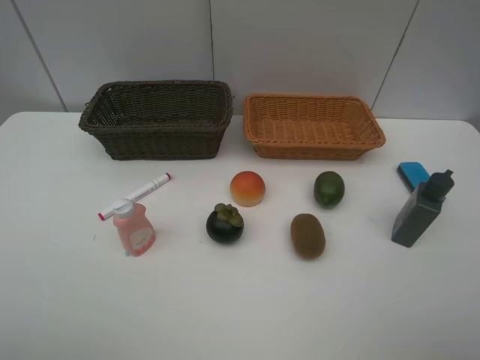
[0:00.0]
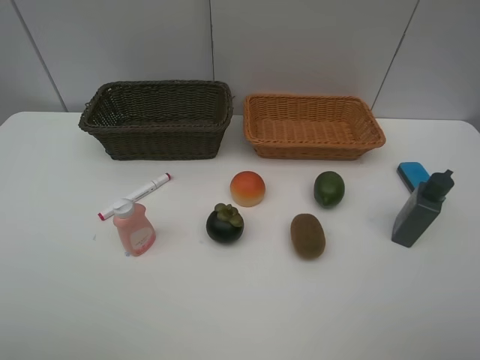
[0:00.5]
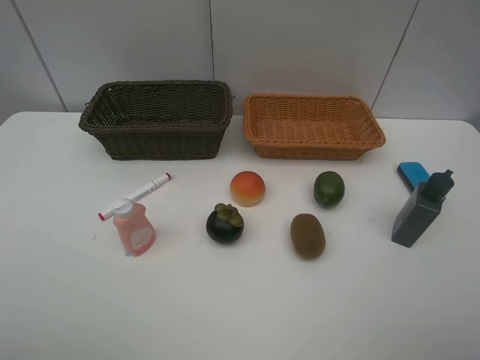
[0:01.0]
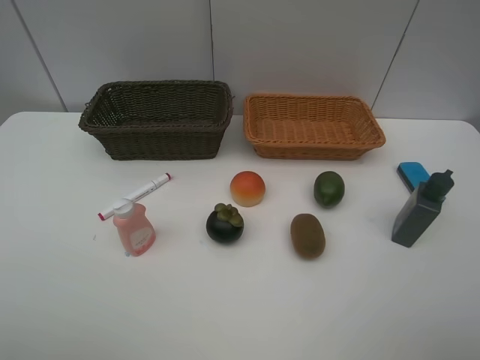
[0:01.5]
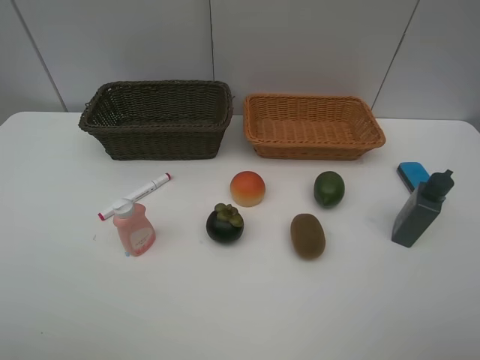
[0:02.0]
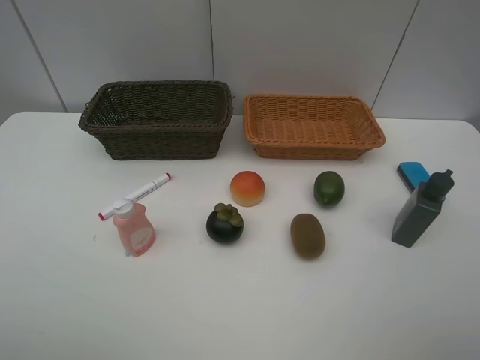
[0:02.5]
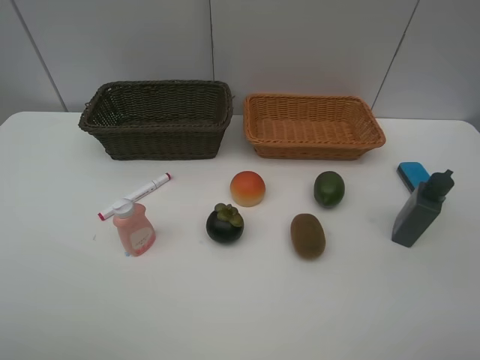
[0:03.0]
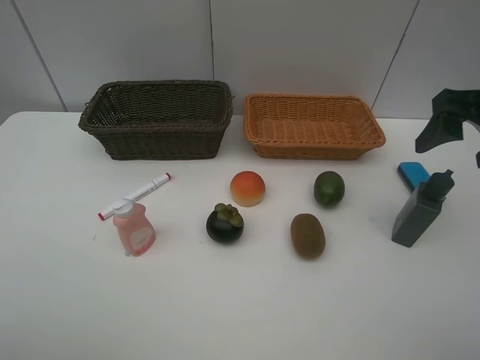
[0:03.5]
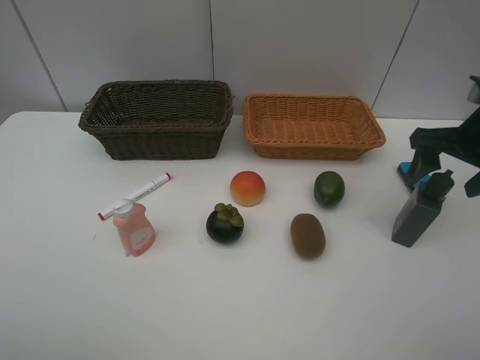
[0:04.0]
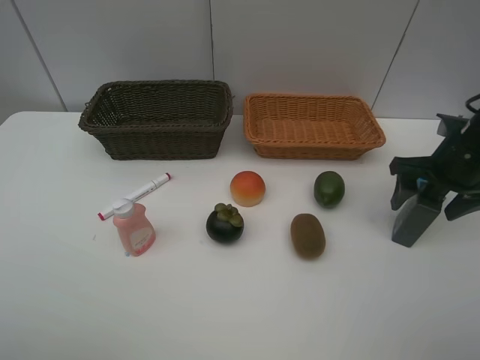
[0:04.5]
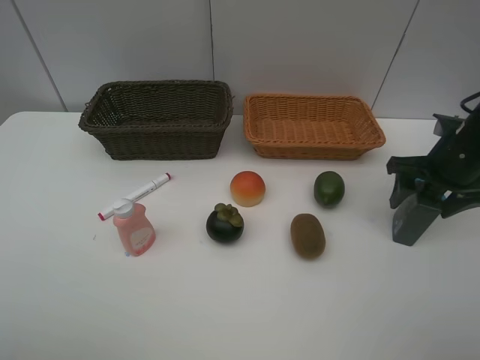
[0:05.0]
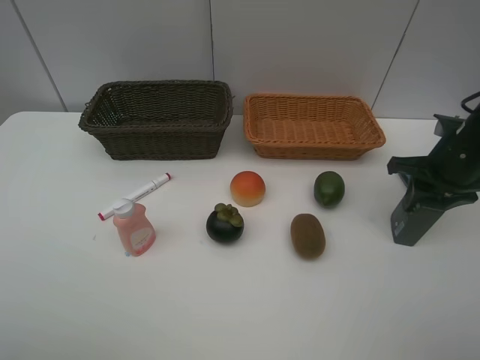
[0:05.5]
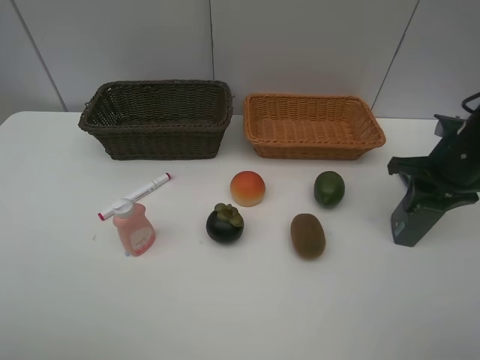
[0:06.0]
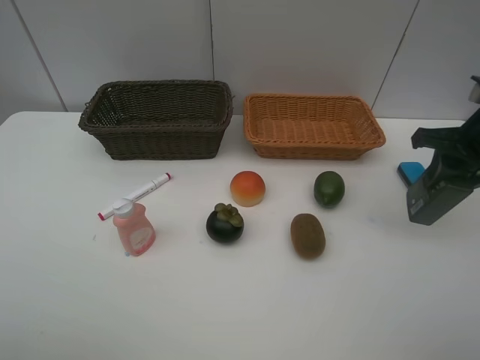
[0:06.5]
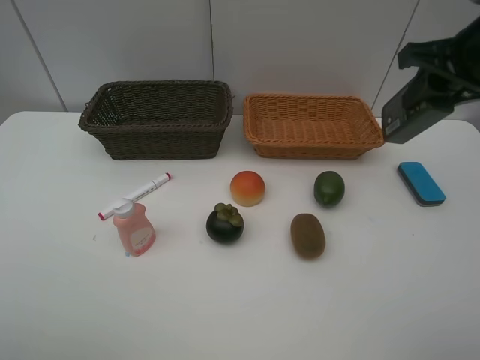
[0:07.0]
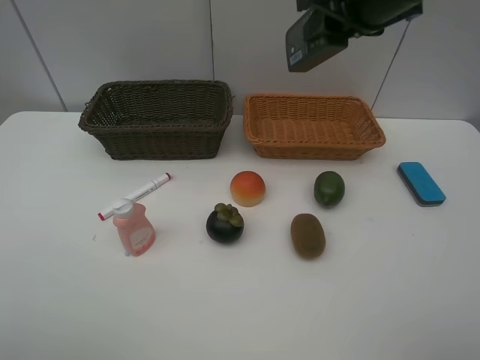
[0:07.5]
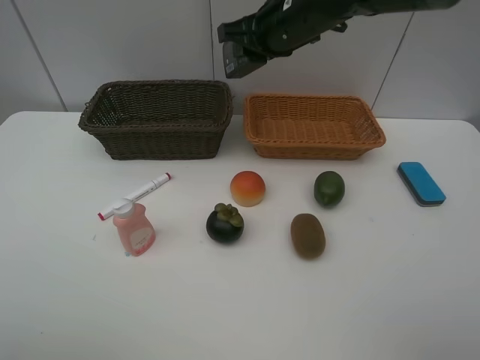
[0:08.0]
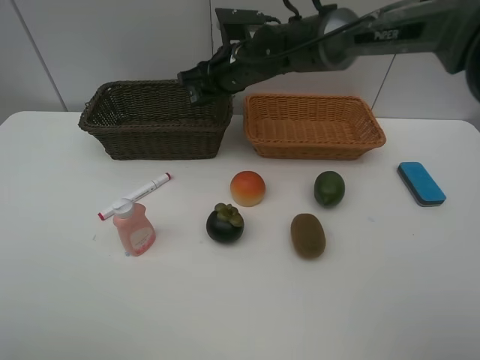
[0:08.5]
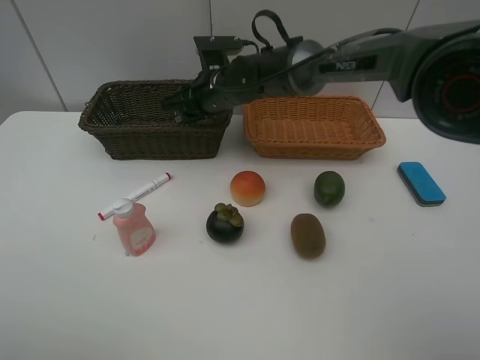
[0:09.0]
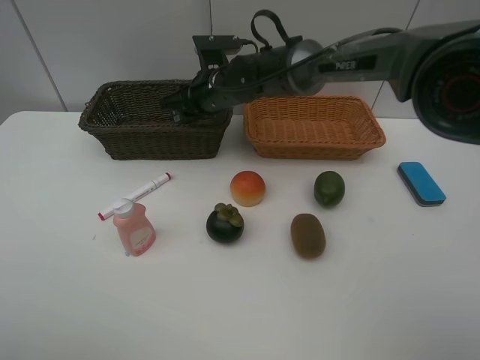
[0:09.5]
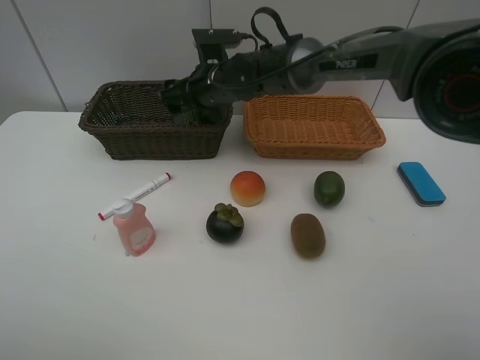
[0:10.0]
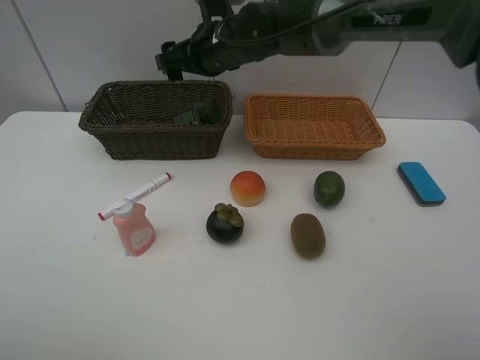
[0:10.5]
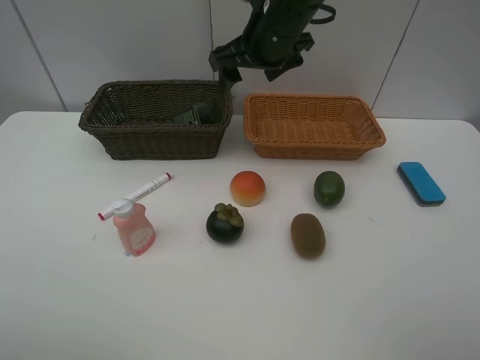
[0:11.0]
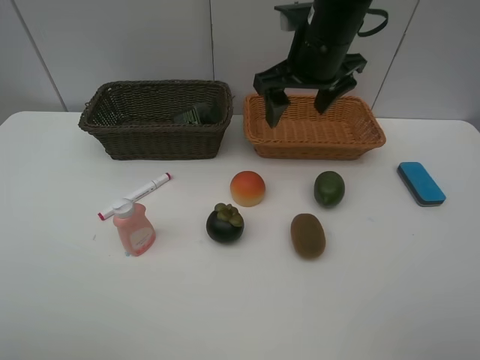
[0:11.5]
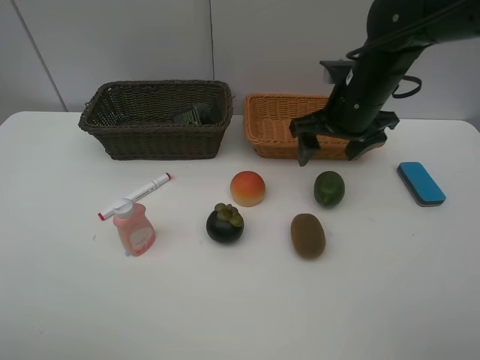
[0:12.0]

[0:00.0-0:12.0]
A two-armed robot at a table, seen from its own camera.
Task of the whole recording: Place multiple objects separately in different baskets.
Step, 0:00.0 to 0:06.0: Pick up the hard facial cleanser with right gripper.
Step, 0:06.5 to 0:10.0: Place the hard facial cleanser in the dark basket with right gripper.
0:02.0 to 0:04.0: The right gripper moves forward, roughly 25 cm.
0:04.0 to 0:06.0: The right gripper goes approximately 5 cm downward, and closes up.
0:06.0 to 0:08.0: The right gripper moves to the left, forward and upward, roughly 30 cm.
0:08.0 to 0:10.0: The right gripper moves downward and to the left, about 15 cm, and opens.
0:10.0 to 0:12.0: The right gripper goes about 20 cm to the right and backward.

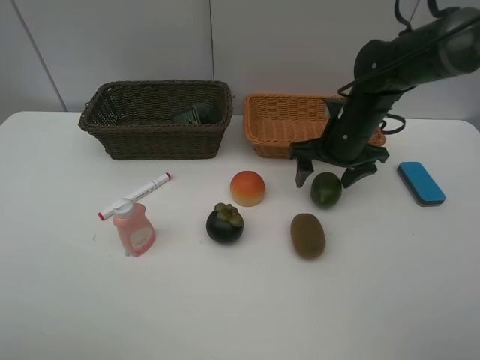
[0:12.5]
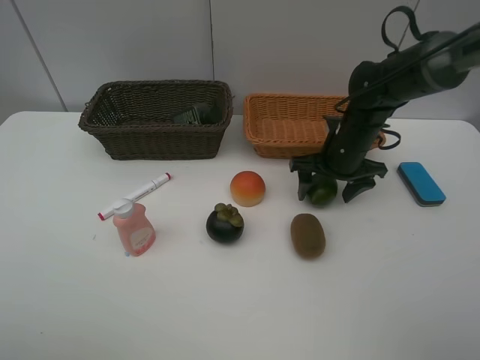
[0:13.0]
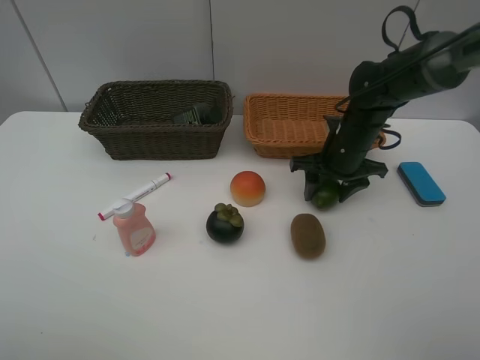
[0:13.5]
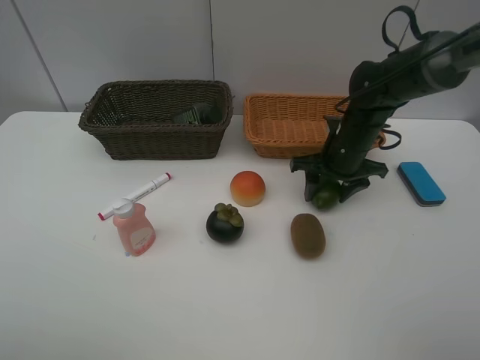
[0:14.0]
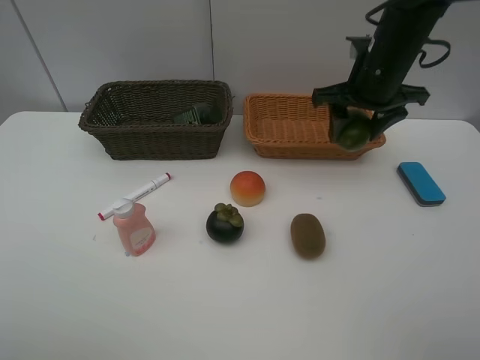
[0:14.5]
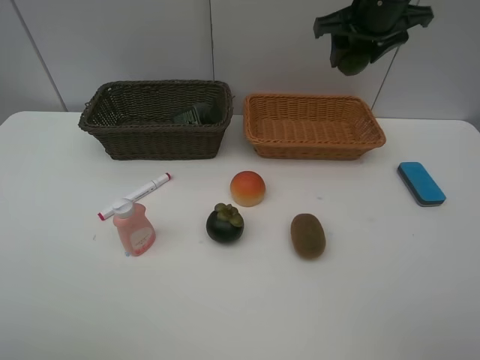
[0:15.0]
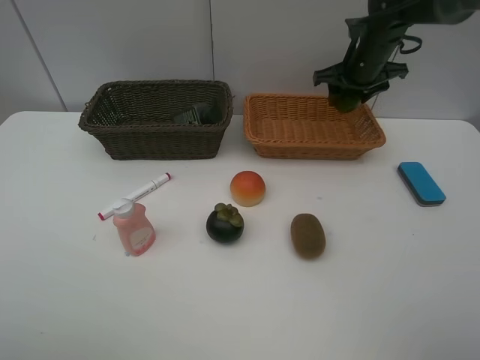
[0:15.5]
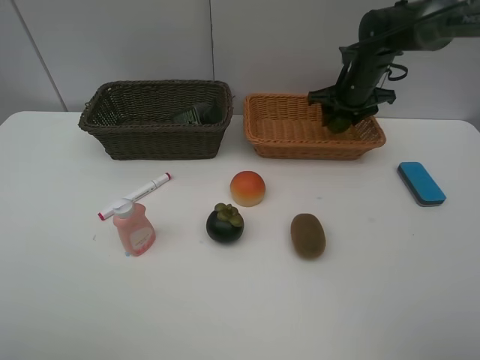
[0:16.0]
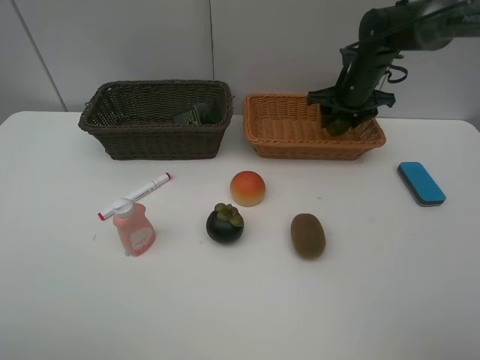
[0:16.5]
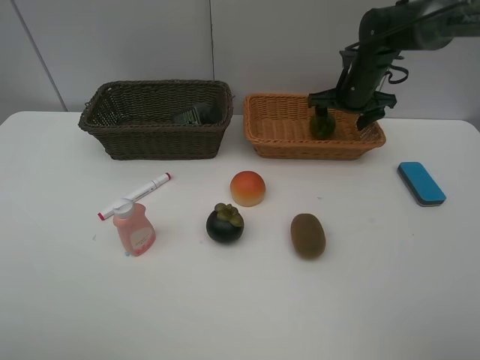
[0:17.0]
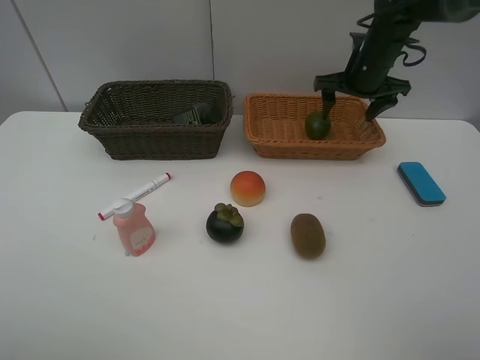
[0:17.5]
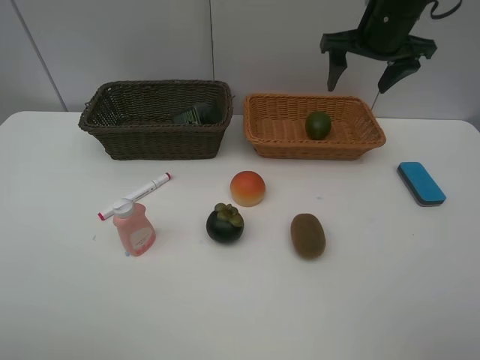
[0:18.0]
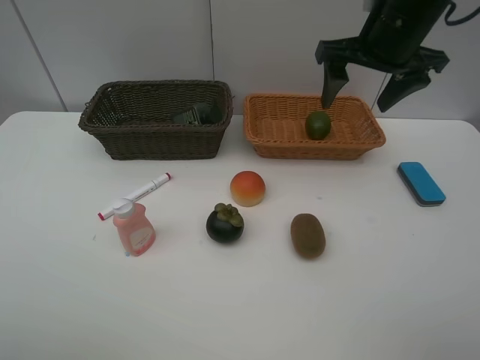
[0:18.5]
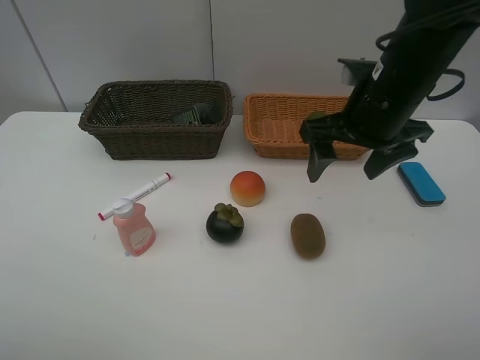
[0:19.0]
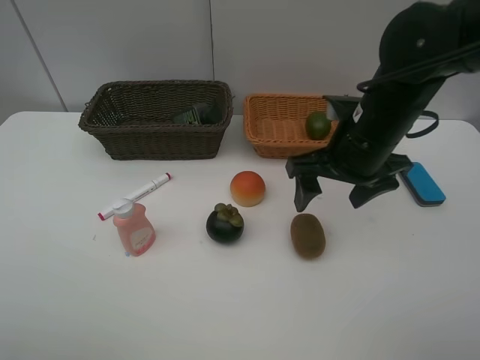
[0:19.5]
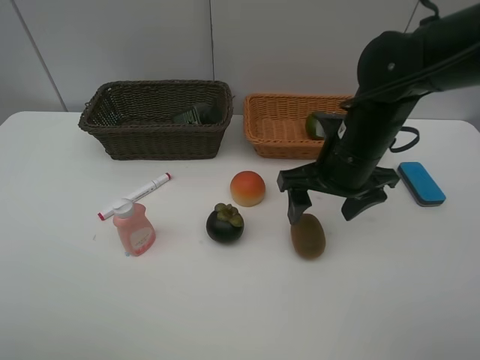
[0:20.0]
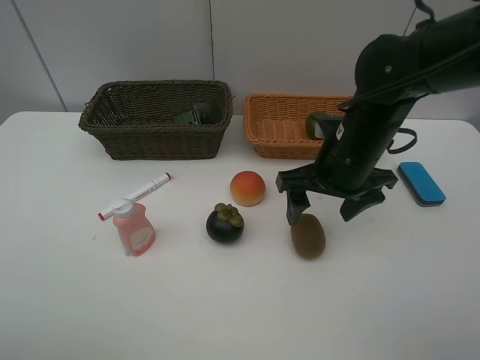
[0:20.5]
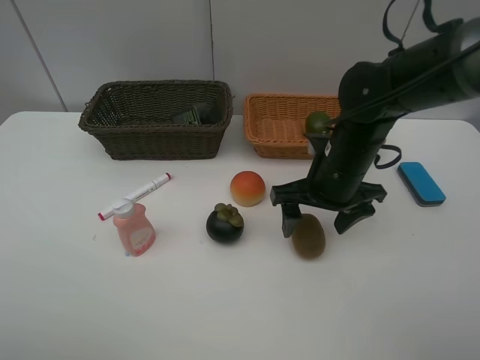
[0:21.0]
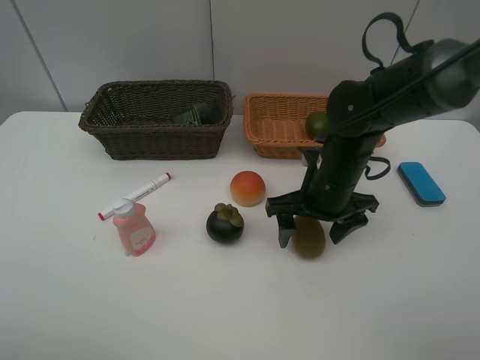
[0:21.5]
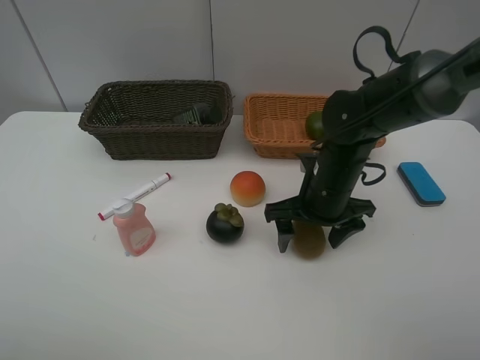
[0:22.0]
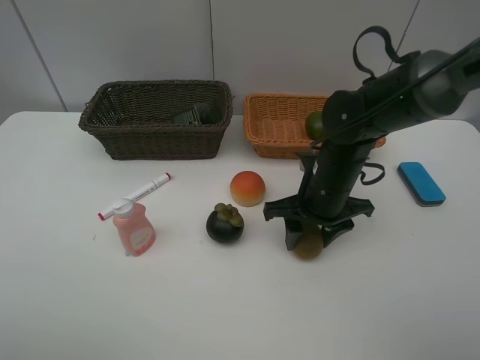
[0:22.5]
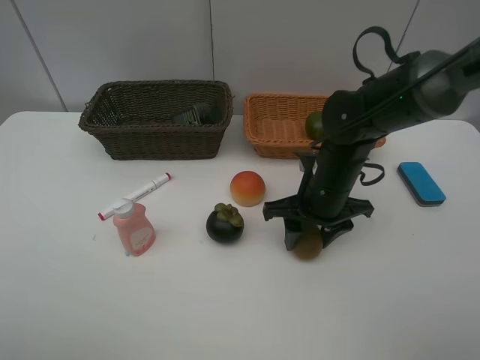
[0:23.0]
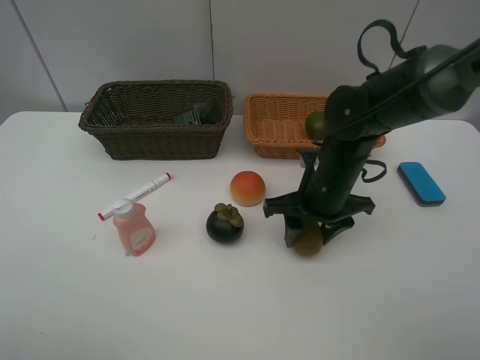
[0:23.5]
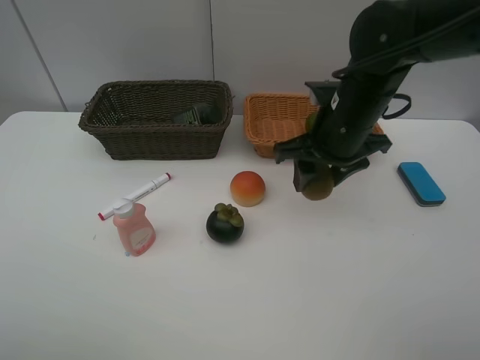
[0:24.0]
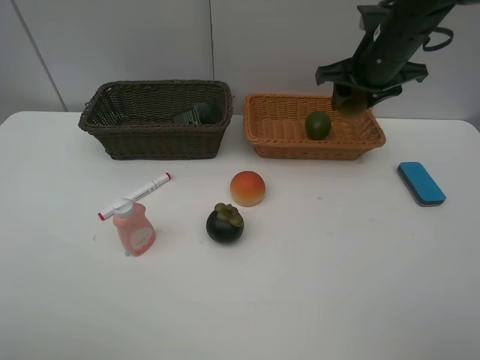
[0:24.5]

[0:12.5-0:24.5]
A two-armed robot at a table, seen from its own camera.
Task of the whole recording: Place multiple objects separately in different baskets.
Step, 0:14.5 to 0:17.0: Place the lime in the light basket with right gripper.
Step, 0:17.5 to 0:23.5: Pick up kiwi with right gripper.
0:12.5 to 0:14.5: The right gripper goes about 10 cm upward, and closes up.
0:14.5 to 0:16.5: The right gripper shifts approximately 15 cm forward and downward.
0:16.5 to 0:18.5: The right gripper shifts approximately 20 cm backward and upward.
0:18.5 to 0:20.5: The right gripper shifts roughly 15 cm downward and backward.
0:20.5 to 0:22.5: The right gripper is displaced downward by approximately 5 cm, and closes up.
0:22.5 to 0:24.5: The right gripper is displaced upward, forward and to the right by roughly 20 cm.

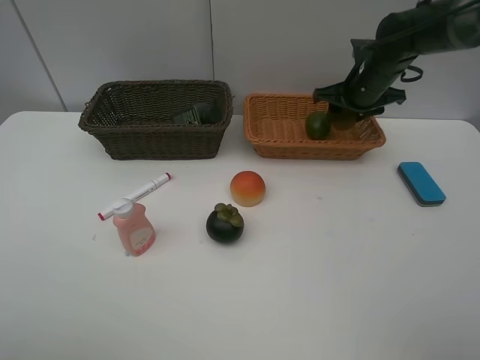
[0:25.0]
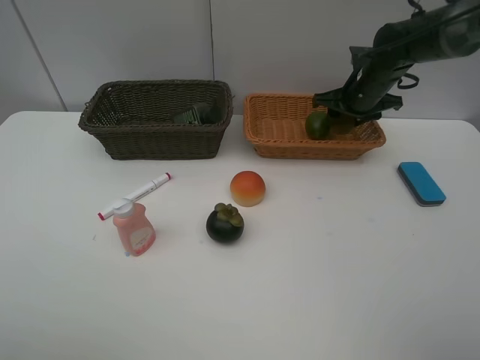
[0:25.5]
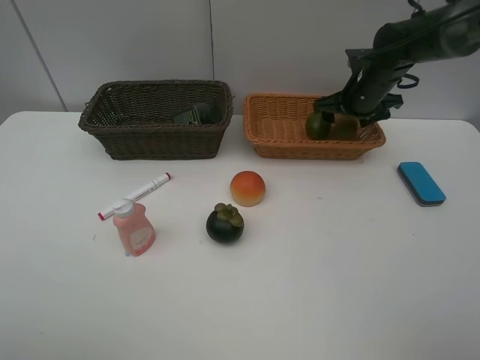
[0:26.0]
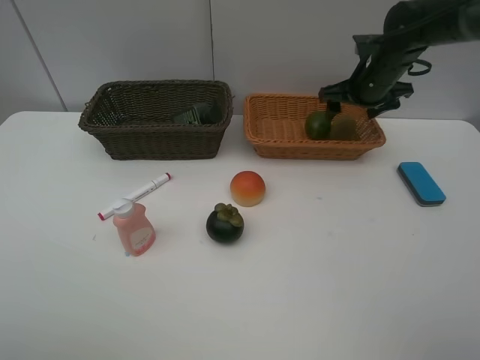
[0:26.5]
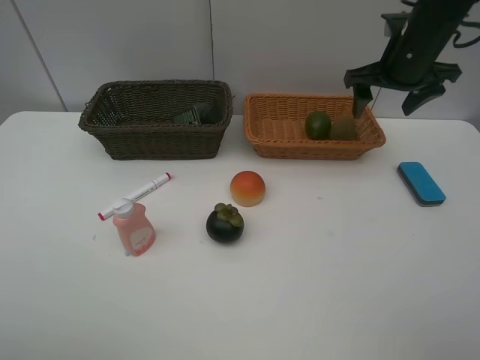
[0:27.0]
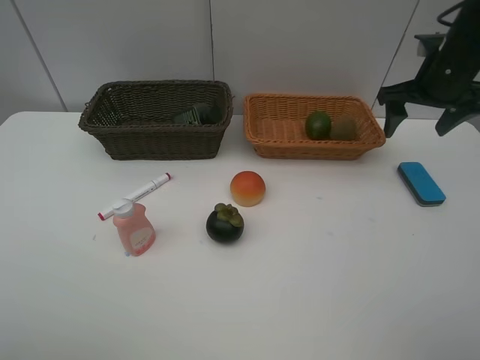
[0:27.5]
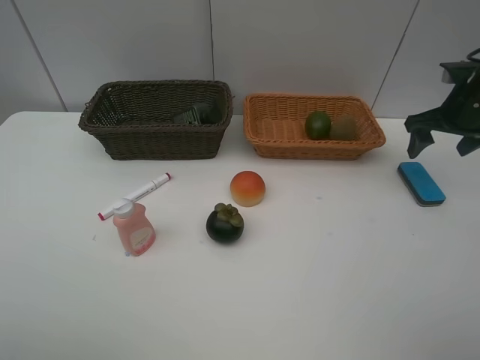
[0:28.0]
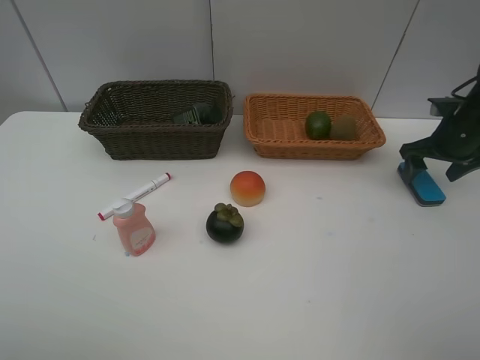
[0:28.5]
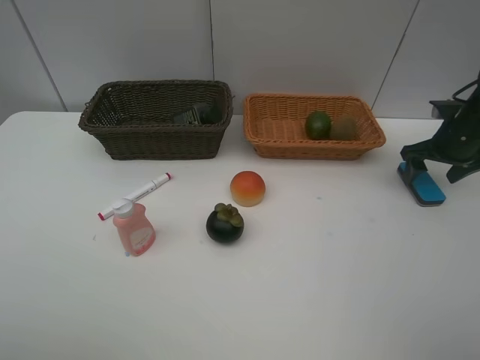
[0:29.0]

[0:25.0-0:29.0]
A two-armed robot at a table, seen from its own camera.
Task of the whole recording: Place multiple objects separately in different baskets.
Step, 0:25.0 to 0:26.5: Place the kiwi in the light basket with right gripper.
0:25.0 to 0:27.0: The right gripper goes approximately 10 cm upward and backward, and opens its fingers.
0:27.0 to 0:29.0: The right gripper goes approximately 20 cm to the right and downward.
